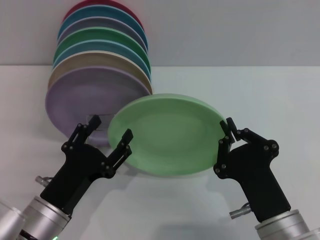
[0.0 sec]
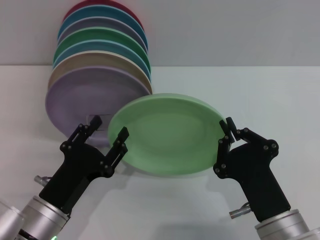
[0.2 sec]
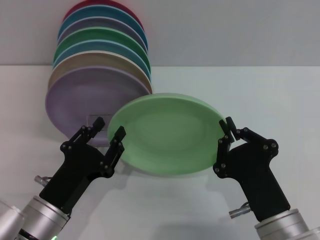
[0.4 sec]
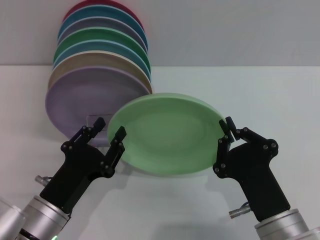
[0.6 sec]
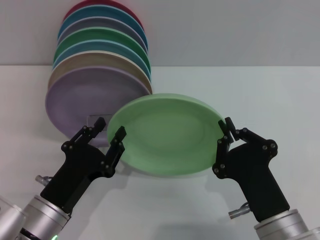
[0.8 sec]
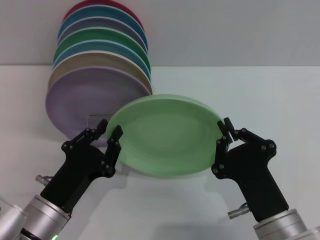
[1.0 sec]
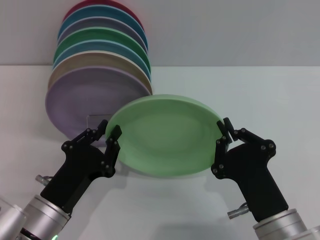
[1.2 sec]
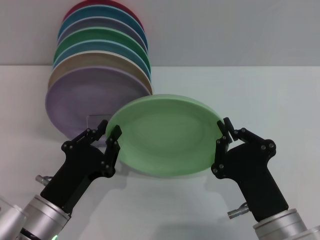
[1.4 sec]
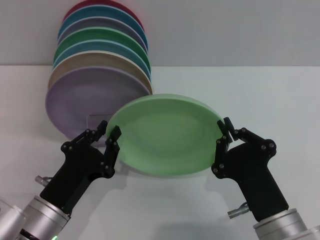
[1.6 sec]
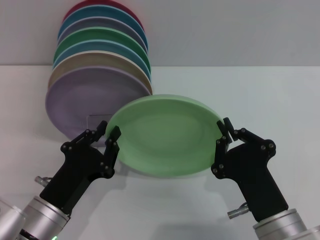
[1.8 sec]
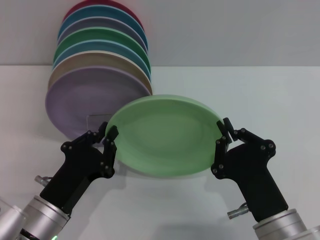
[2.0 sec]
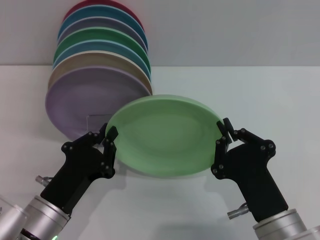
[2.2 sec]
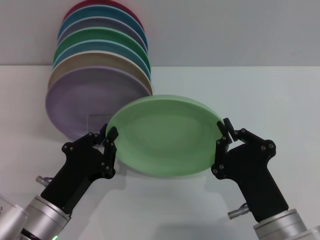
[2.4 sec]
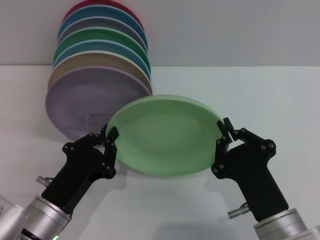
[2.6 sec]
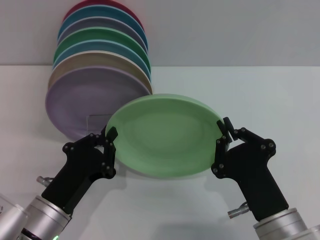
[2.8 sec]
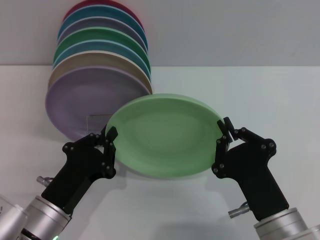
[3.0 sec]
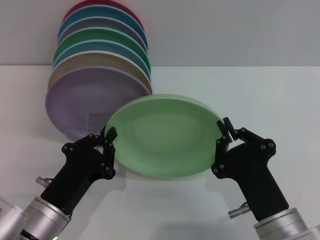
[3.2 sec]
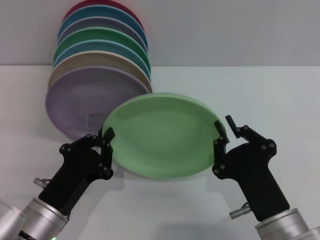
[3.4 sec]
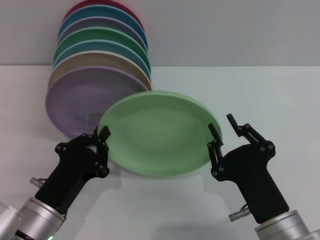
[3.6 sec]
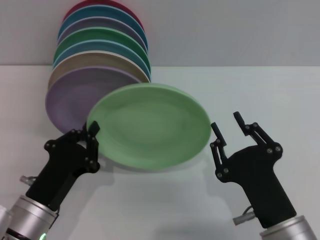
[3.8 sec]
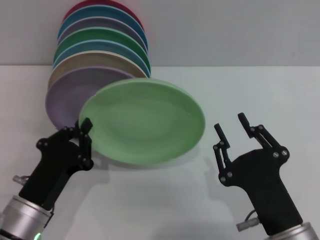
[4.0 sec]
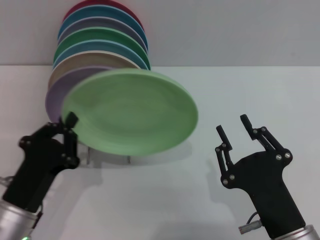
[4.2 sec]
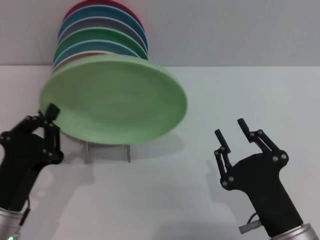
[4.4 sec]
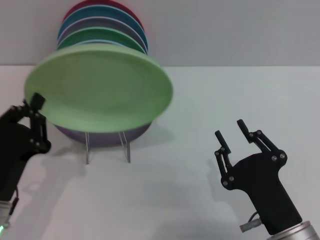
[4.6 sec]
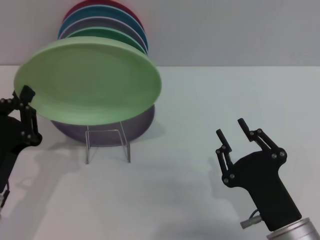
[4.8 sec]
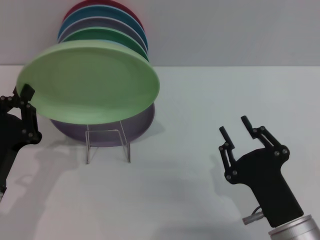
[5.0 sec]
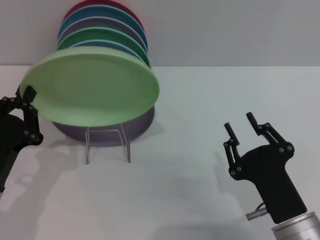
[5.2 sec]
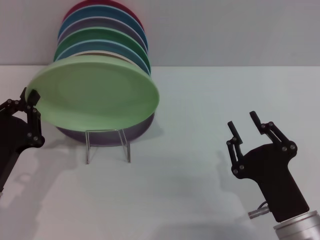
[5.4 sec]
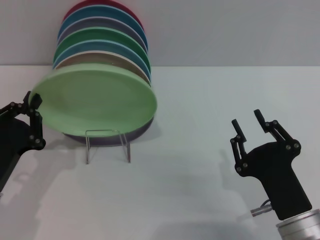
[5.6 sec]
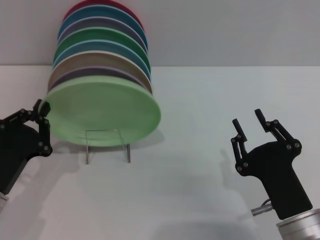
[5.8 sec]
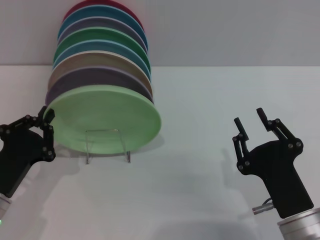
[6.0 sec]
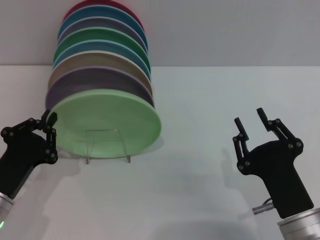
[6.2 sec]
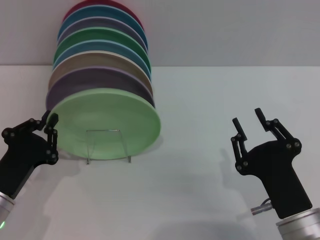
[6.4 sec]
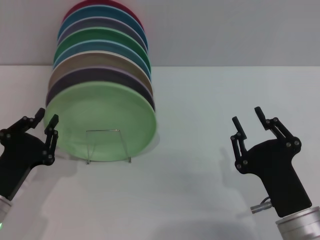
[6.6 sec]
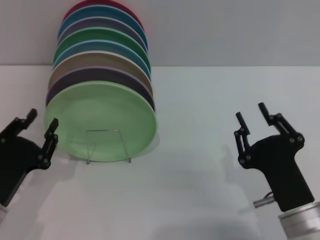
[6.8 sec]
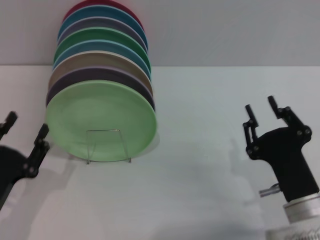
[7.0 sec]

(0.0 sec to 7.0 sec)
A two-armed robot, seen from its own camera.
Task of the whole recording: Grip the plate with one hand, pass it to the other, then set it on the shelf.
Step, 0.0 sec - 3.8 sec: Pass the plate from the right gripper to the left gripper.
Step, 4.0 sec - 6.8 sec: Place the plate on the shelf with the left gripper.
0.0 sec - 1.4 sec: The left gripper closes.
1.4 sec - 2.8 sec: Both grippers stay about where they are.
2.8 sec - 4.2 sec: The right gripper opens.
4.2 sec - 5.6 sec: The left gripper moves about 5 cm.
5.6 sec - 7.0 sec: The left gripper opens.
